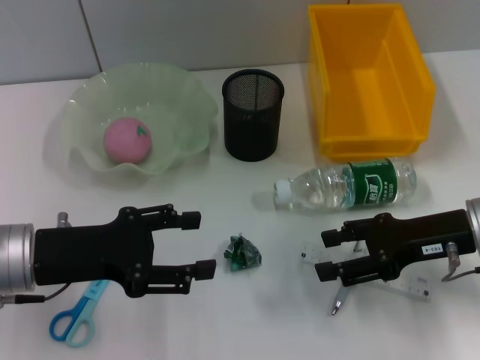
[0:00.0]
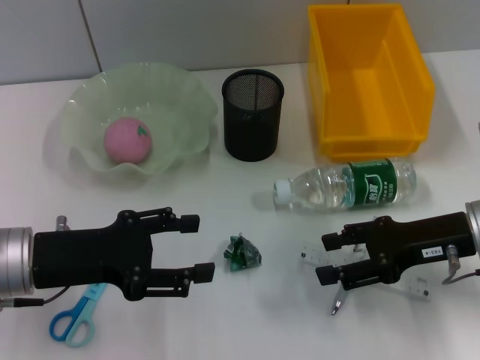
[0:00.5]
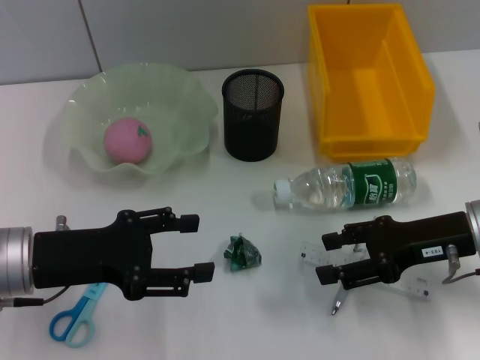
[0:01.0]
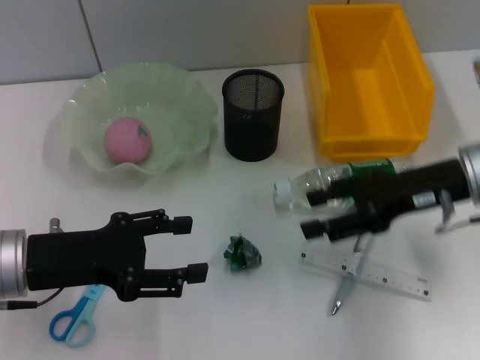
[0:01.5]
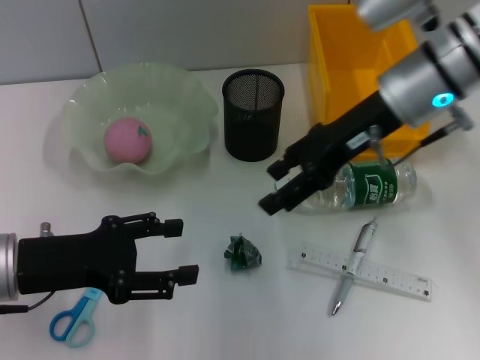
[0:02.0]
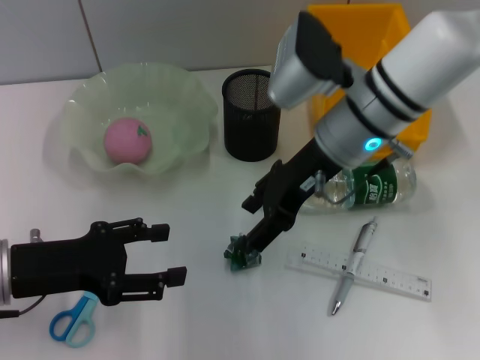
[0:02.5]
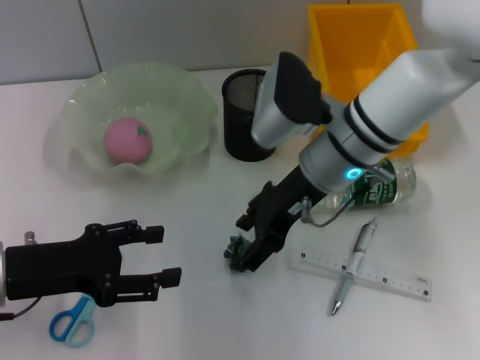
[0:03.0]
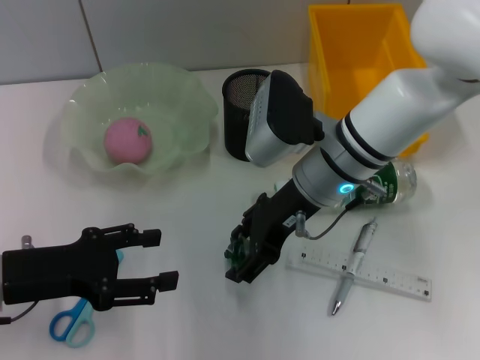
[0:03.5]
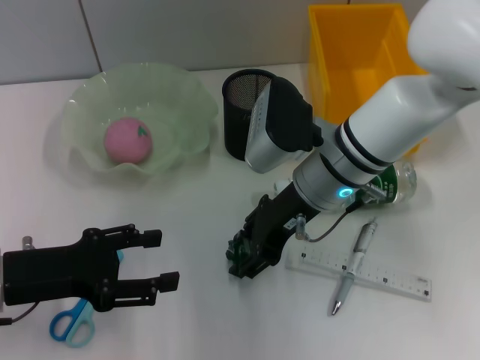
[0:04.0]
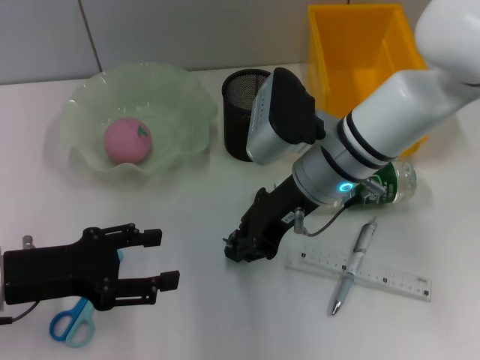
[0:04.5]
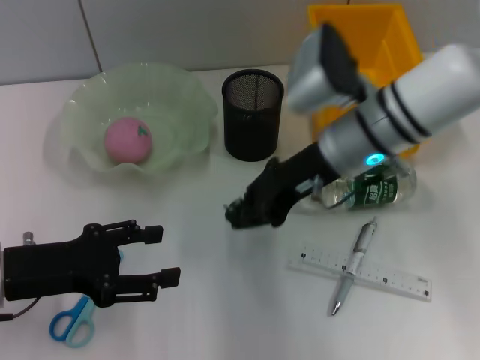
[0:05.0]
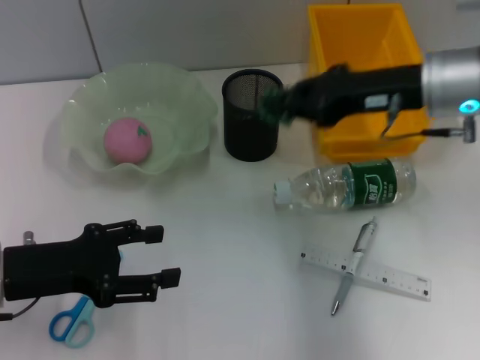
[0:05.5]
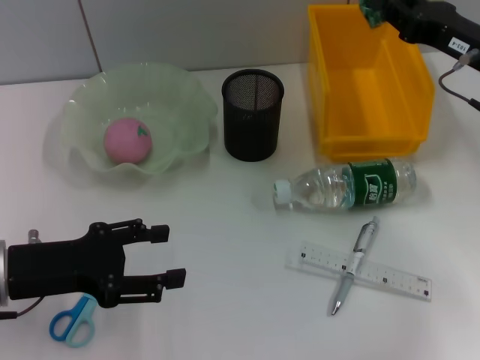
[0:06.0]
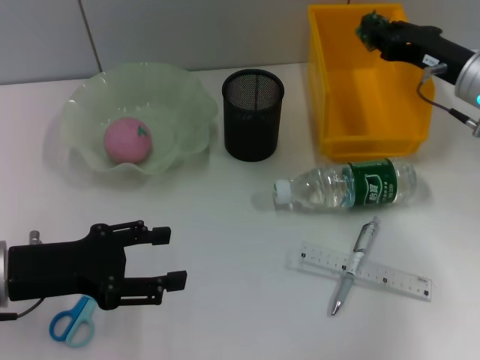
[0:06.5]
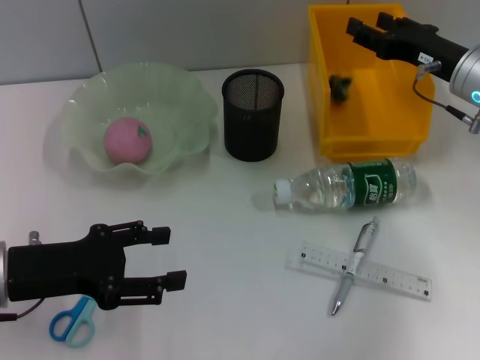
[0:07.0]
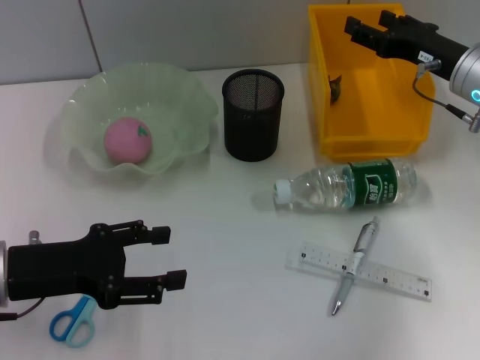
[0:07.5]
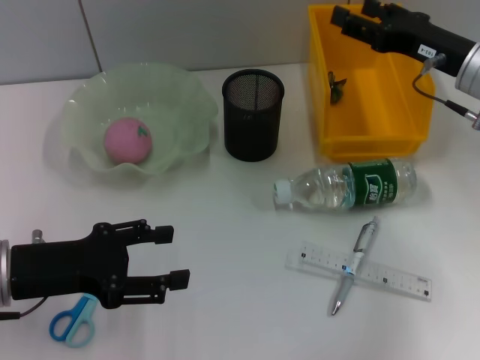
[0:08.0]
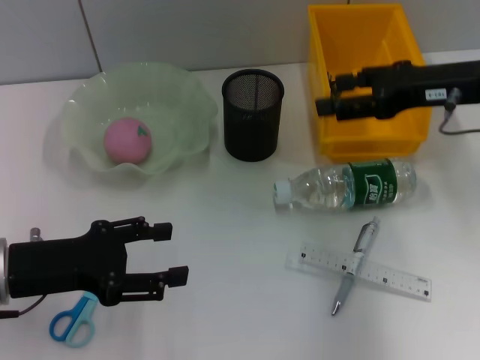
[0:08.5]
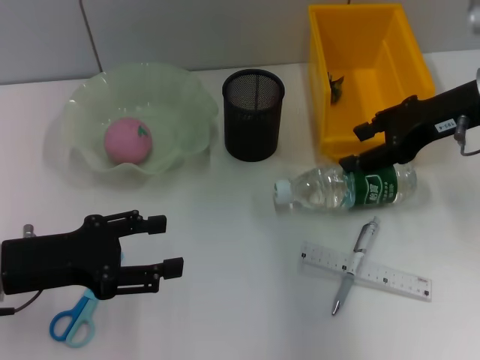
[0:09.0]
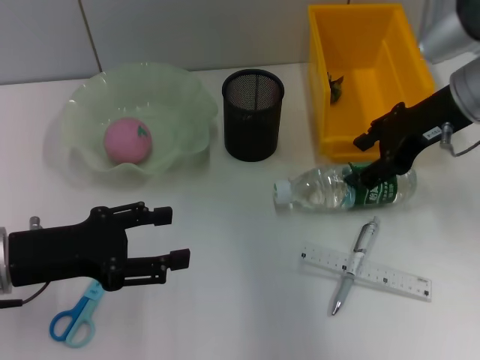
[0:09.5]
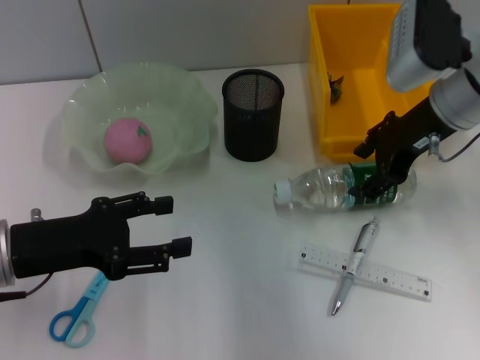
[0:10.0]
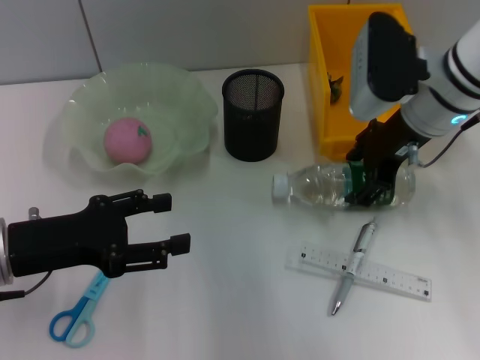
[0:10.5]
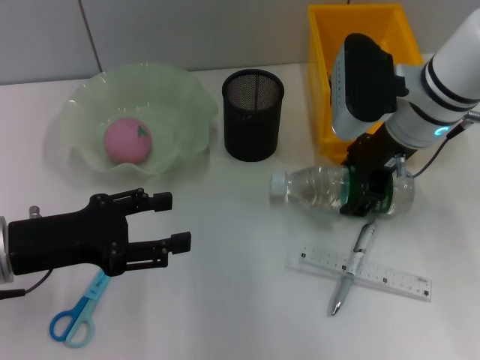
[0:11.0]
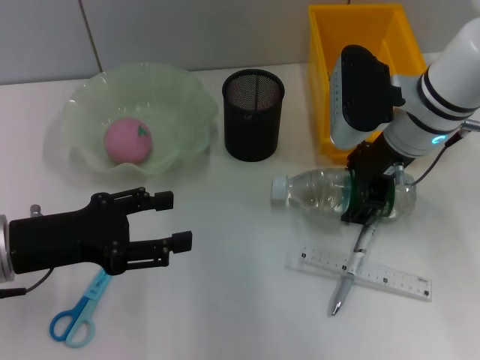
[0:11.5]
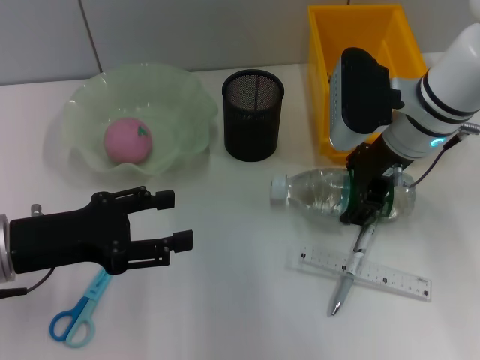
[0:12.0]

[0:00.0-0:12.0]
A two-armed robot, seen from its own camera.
Step, 0:00.0 to 0:04.5: Grab the plastic with the right hand.
Step, 0:05.0 to 0:07.0: Place the plastic into the trash can with the right hand.
0:00.0 to 0:02.0: The right gripper is displaced upward, to the left and forward by some 15 cm.
0:02.0 to 0:04.0: The right gripper shifts approximately 10 cm downward and to the left.
0:04.0 to 0:06.0: The right gripper shifts about 20 cm to the right, and closes up.
0:06.0 to 0:08.0: The right gripper opens.
0:08.0 to 0:10.0: The right gripper changes place by approximately 5 cm.
0:10.0 to 0:12.0: The right gripper changes place by some 5 cm.

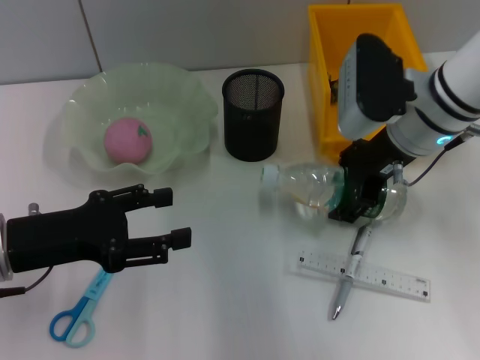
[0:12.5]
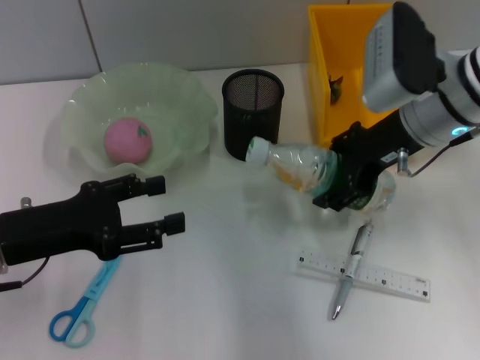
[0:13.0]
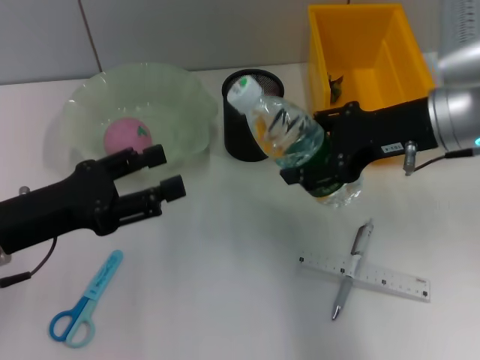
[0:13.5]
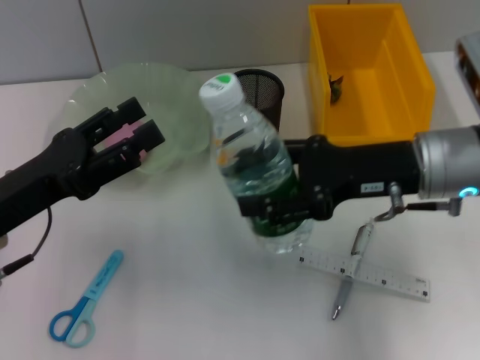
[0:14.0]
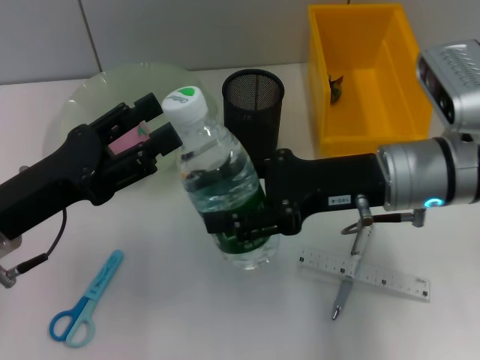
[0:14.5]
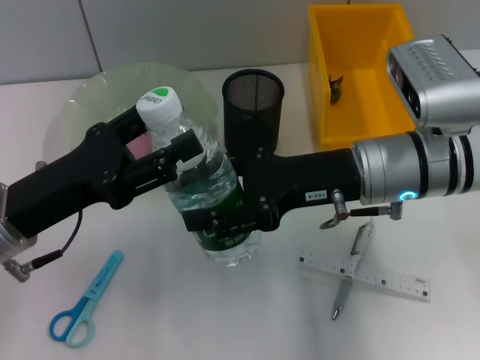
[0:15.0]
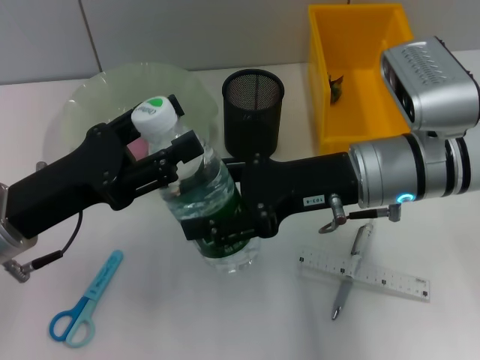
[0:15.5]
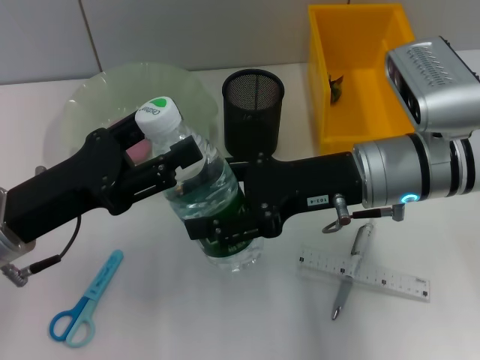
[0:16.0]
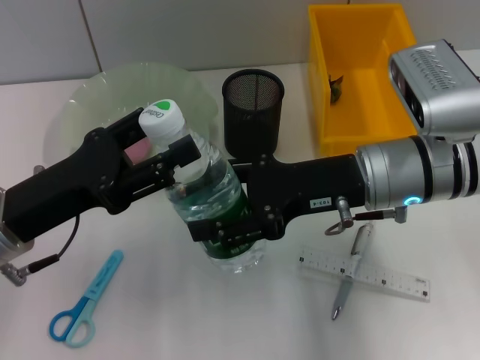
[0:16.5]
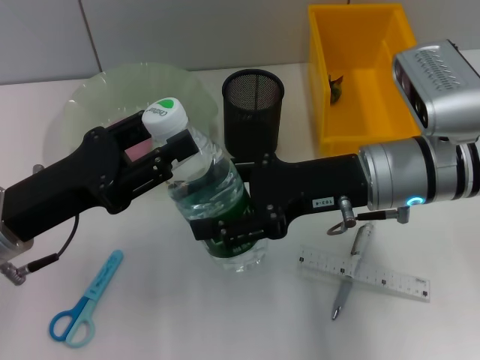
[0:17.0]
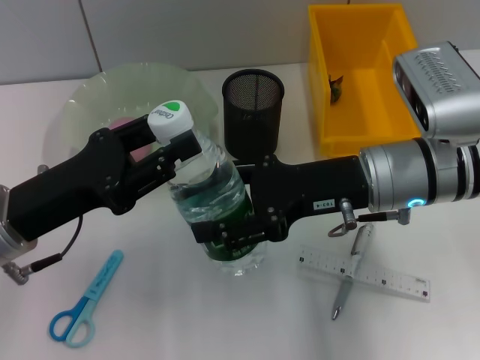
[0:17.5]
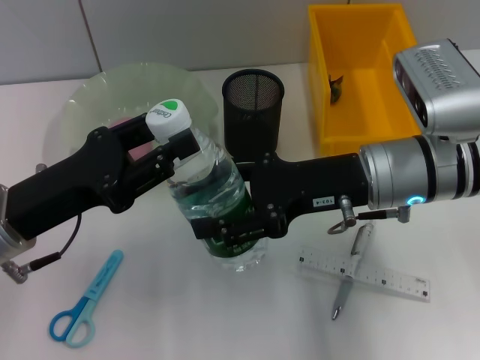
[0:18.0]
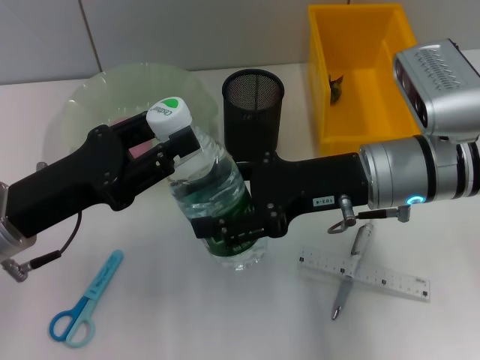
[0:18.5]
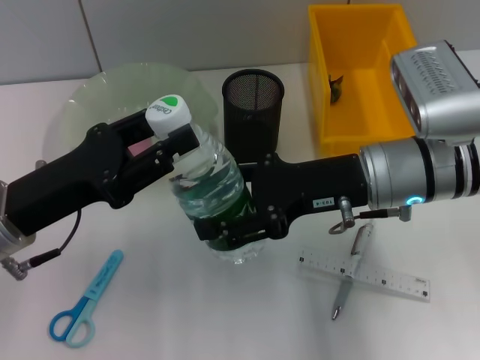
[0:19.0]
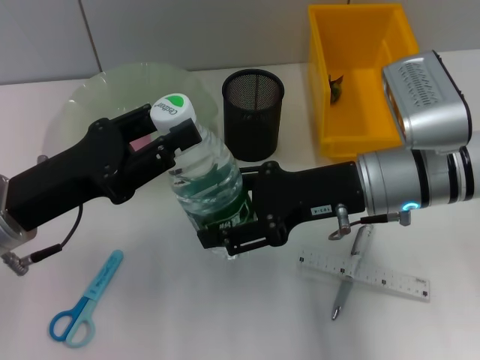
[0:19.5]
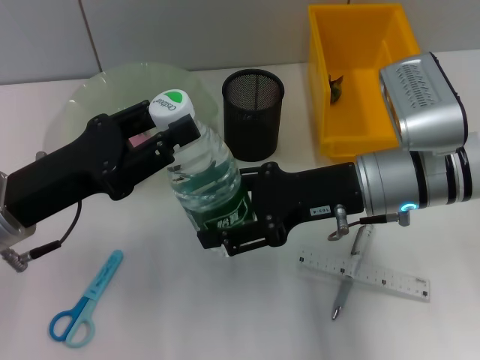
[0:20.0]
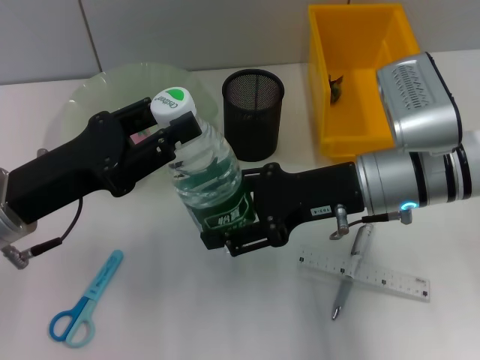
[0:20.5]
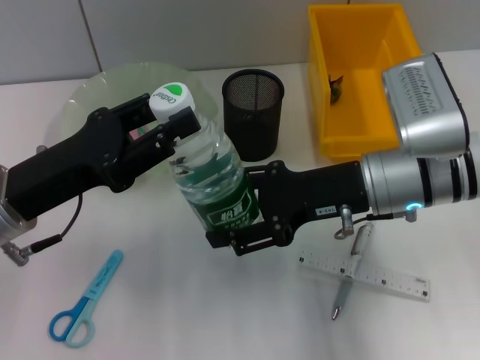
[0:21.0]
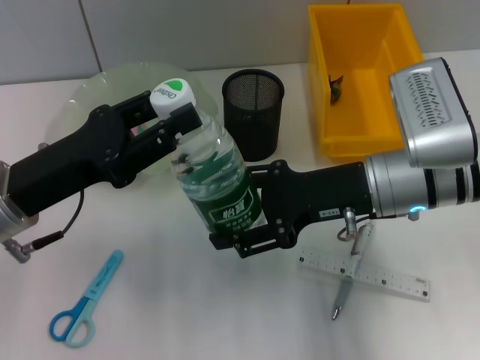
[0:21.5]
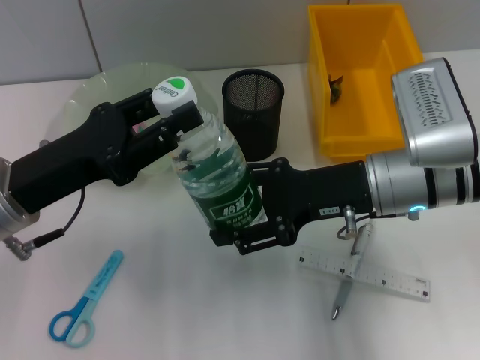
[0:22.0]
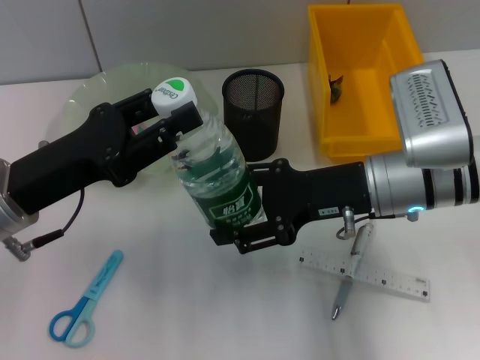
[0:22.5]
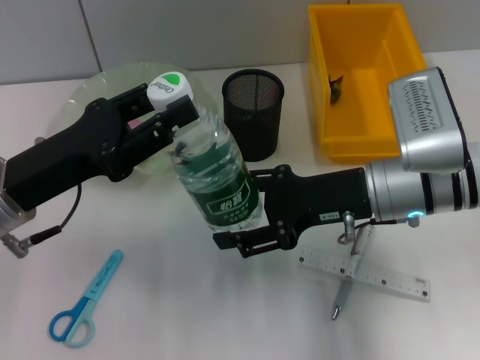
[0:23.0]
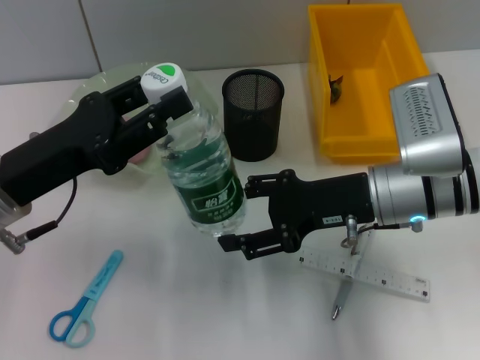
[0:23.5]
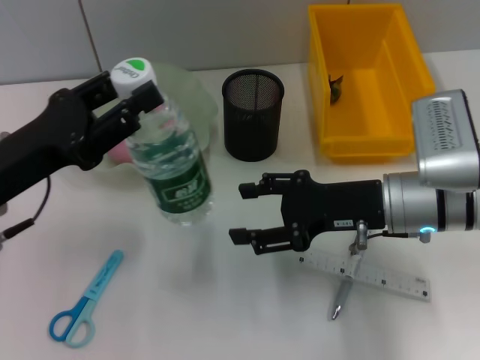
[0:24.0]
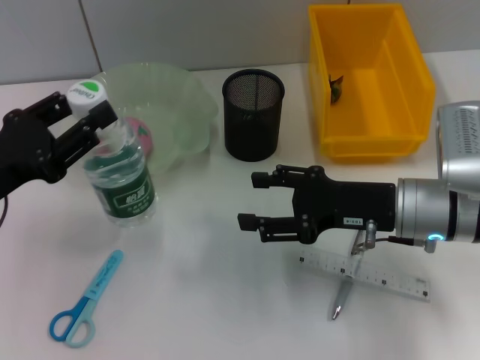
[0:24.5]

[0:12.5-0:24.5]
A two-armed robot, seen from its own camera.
Step, 0:12.5 to 0:23.5: Pass the water bottle from the right hand to the left hand.
0:12.5 to 0:14.5: The right gripper moves backward, roughly 5 cm.
0:14.5 to 0:16.5: The grippers stay close to where they were, moving slightly.
0:16.5 to 0:18.5: The left gripper closes its fingers.
0:18.5 to 0:22.5: The grippers make only small movements.
0:22.5 to 0:24.5: The left gripper shifts roughly 5 cm to the left, while the right gripper moves approximately 5 cm.

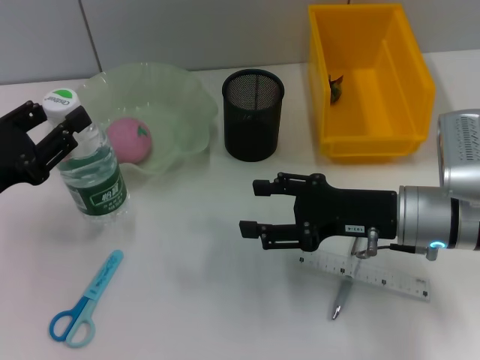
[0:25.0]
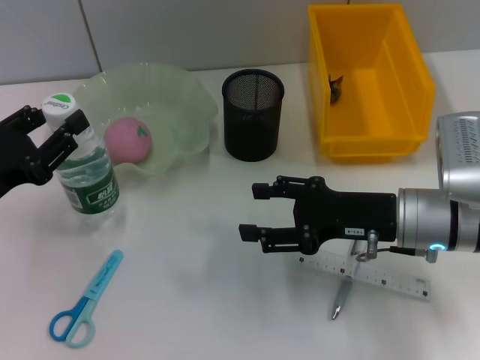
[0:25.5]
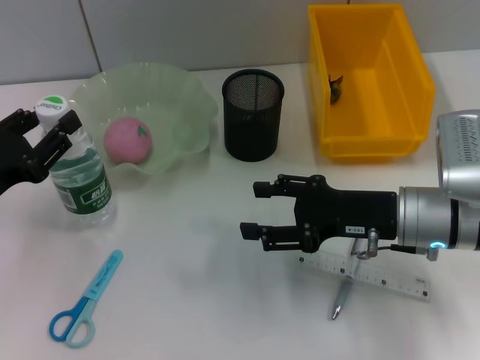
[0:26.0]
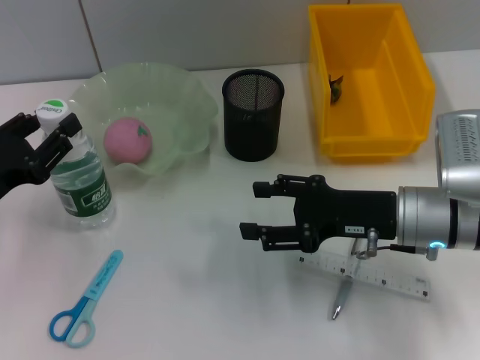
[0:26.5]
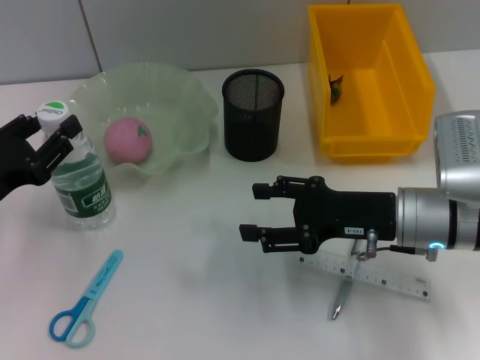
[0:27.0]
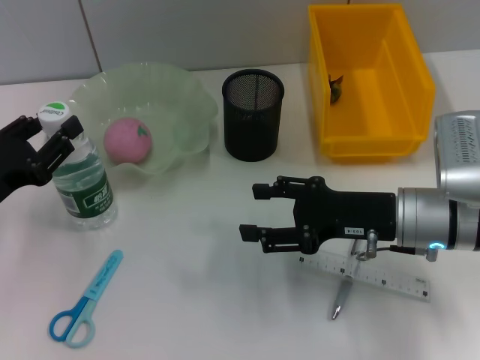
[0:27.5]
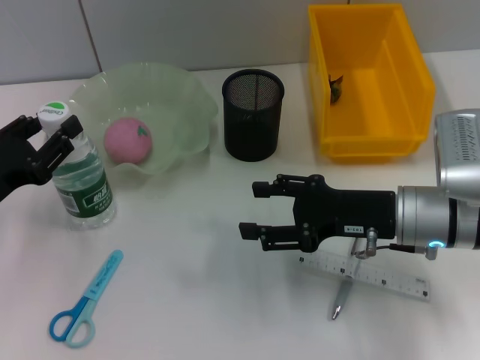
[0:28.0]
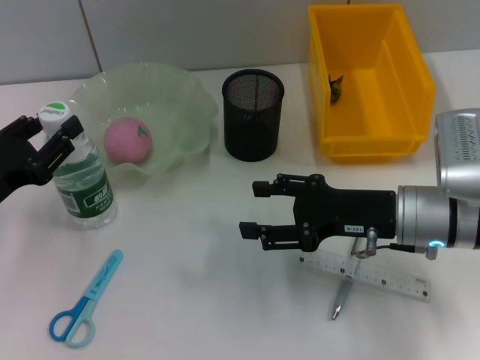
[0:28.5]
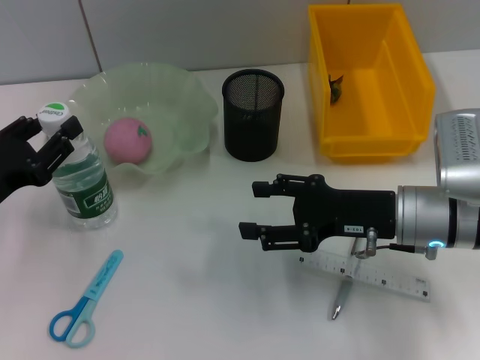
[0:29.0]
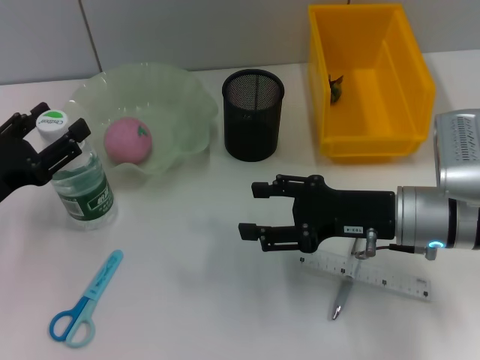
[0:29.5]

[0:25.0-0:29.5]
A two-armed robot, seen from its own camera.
0:25.0 to 0:27.0: The grippers make only small movements.
0:27.0 to 0:29.5: Neither gripper changes place.
